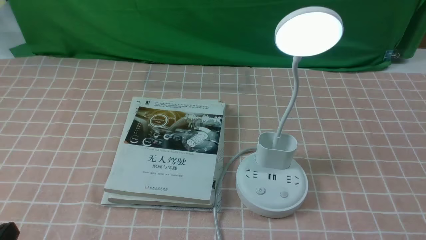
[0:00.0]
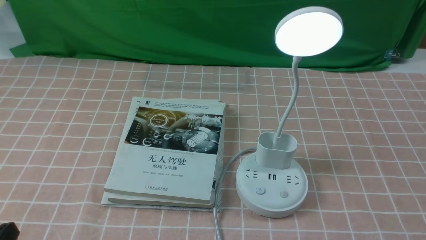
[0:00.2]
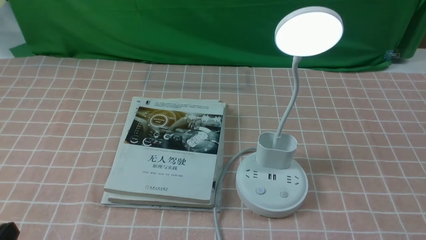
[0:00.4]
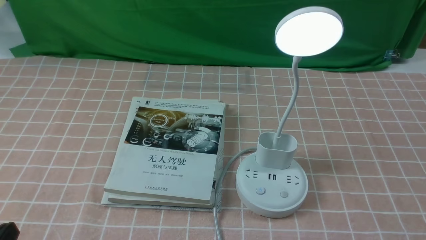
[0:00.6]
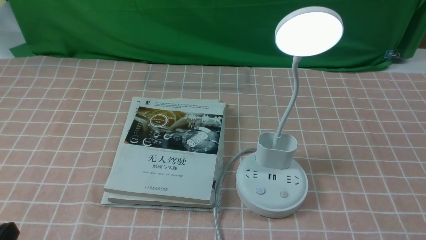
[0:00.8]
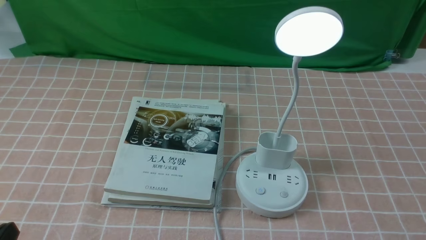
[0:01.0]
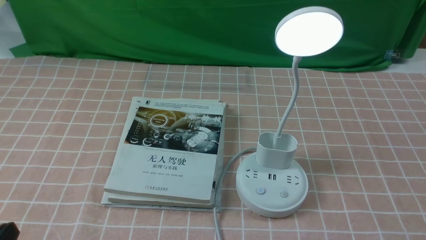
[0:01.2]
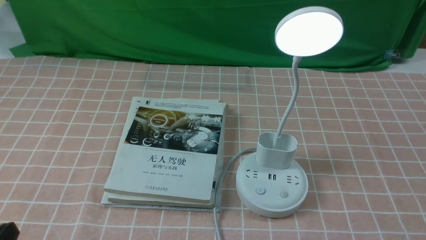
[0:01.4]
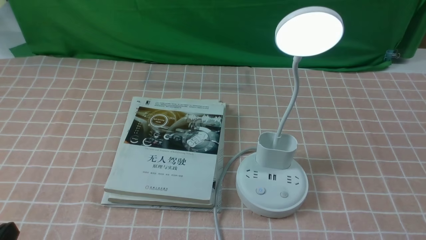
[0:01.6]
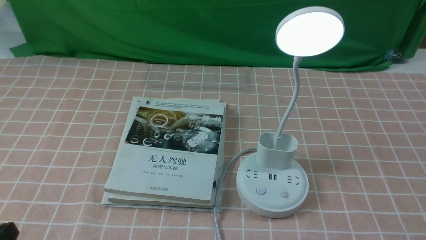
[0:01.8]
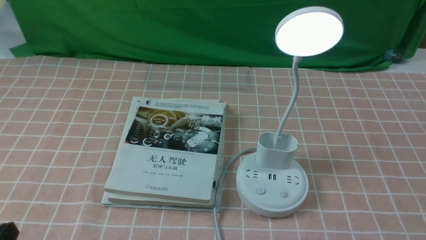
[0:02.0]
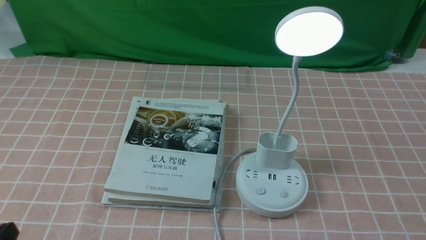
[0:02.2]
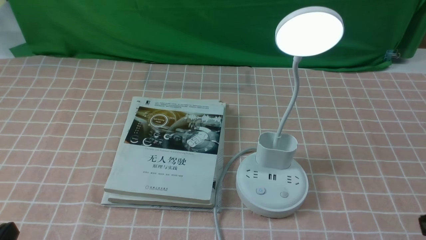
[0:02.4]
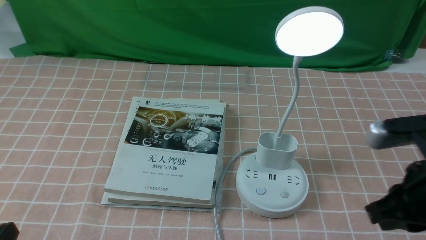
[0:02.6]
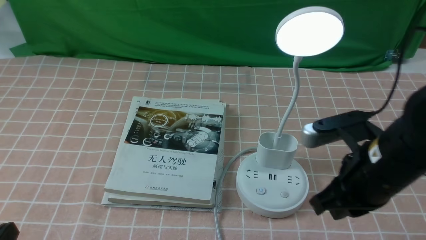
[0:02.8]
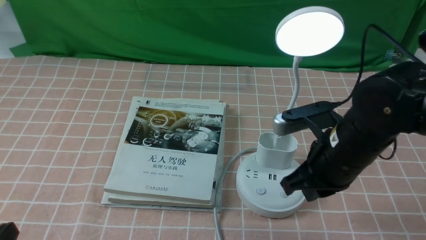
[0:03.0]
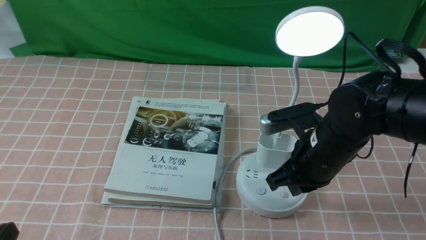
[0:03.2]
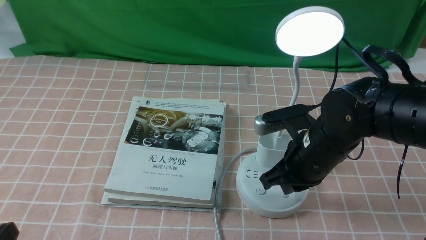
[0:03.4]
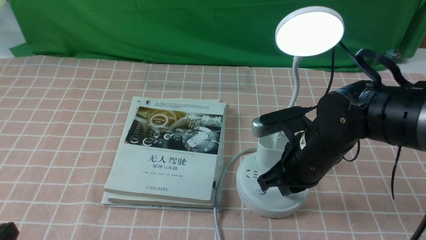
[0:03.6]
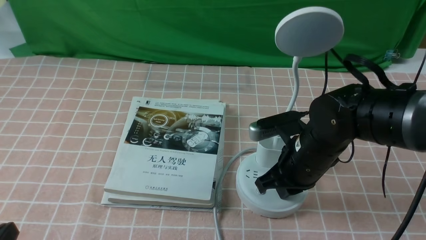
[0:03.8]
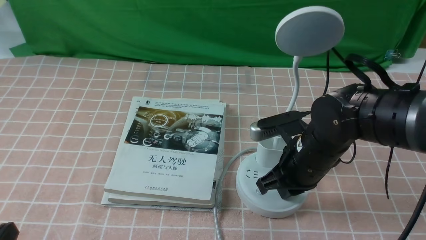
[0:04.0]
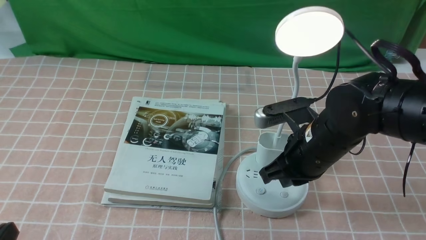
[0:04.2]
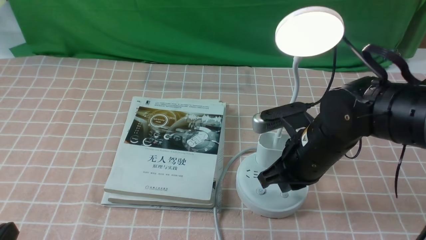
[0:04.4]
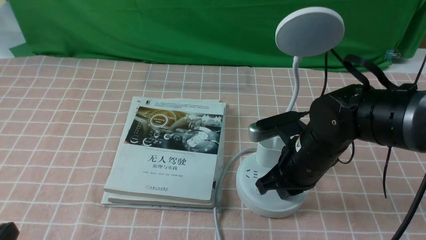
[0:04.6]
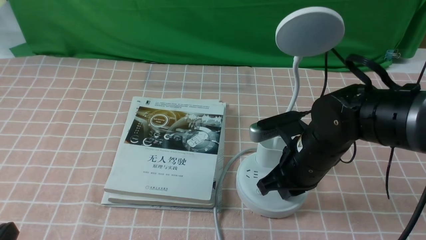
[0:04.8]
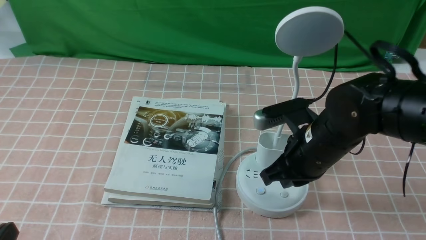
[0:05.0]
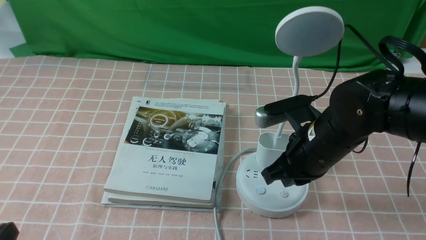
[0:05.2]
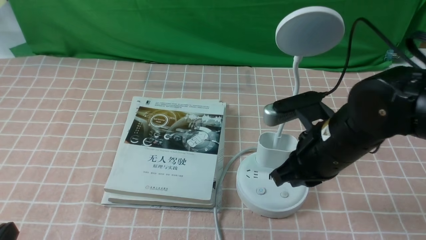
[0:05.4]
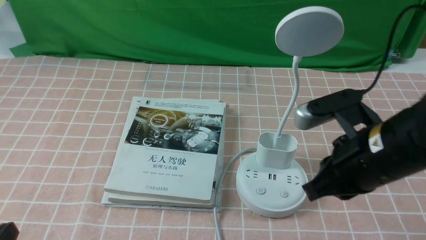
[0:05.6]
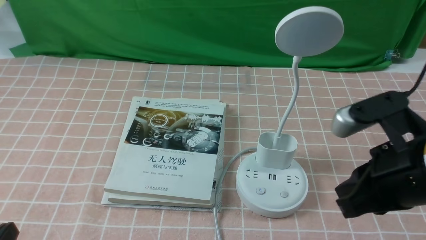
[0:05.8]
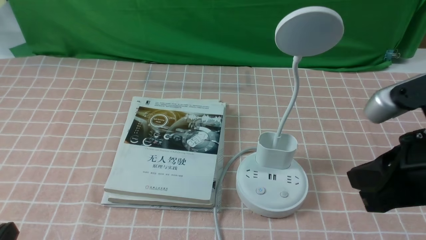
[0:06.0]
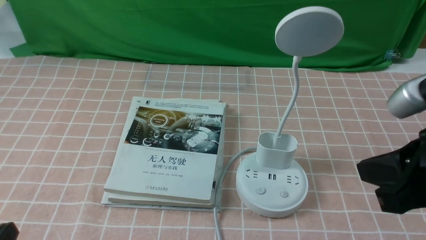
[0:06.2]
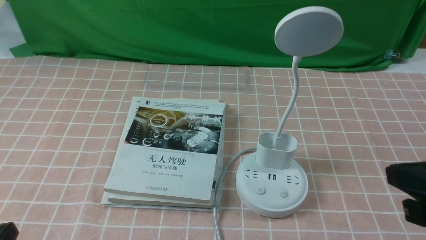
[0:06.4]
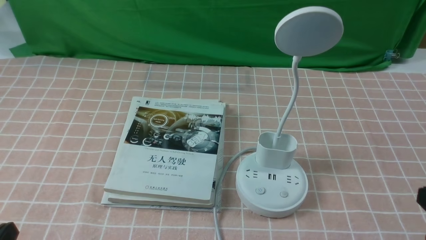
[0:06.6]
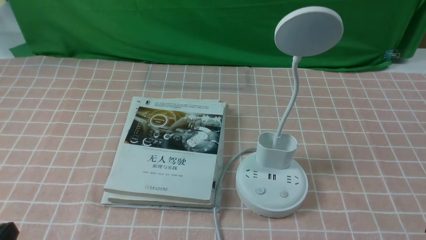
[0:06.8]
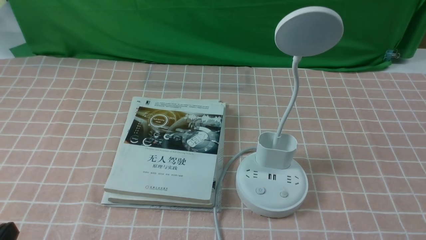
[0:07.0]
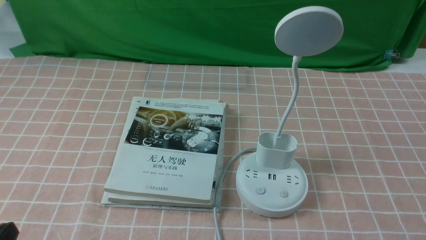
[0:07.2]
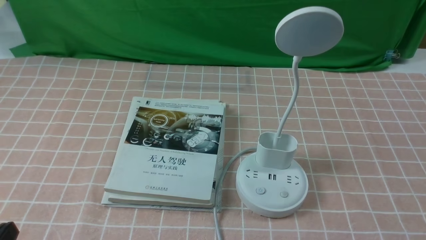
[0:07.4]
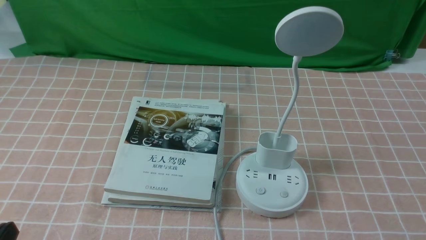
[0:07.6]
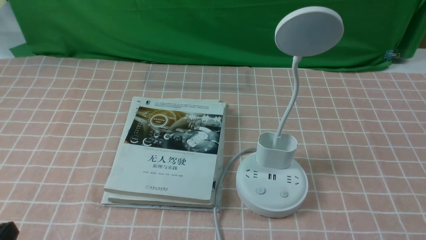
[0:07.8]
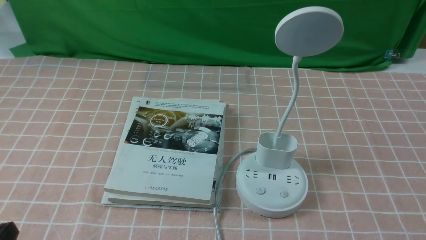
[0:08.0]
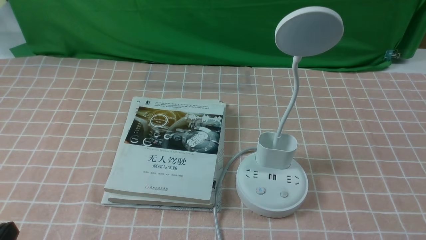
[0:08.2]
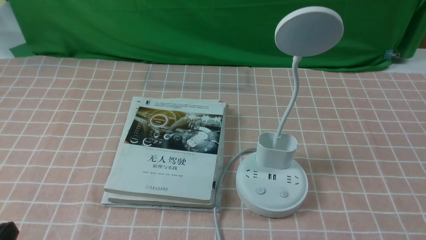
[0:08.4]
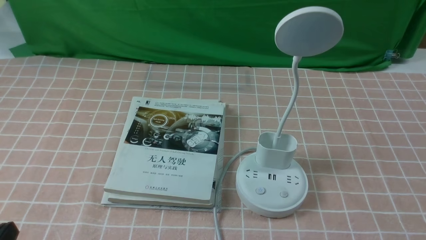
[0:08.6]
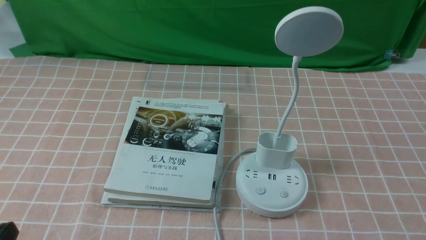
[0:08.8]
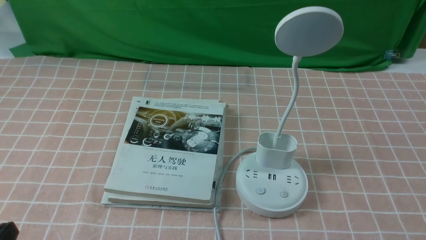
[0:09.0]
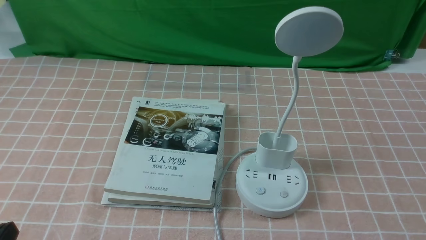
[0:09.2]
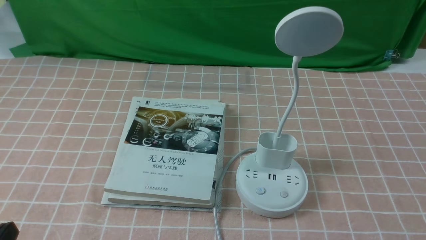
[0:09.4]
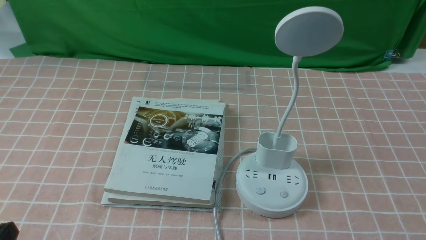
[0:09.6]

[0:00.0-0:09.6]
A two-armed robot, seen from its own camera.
Task of the whole recording: turn off the table lamp on the pink coffee tablecloth by hand.
Step, 0:00.0 to 0:04.6: use the right arm to press the button switch on the lamp holder.
0:01.6 to 0:03.2: The right gripper goes approximately 30 cm forward and to the left, and closes.
0:03.2 to 0:04.8: The grippers move only a little.
0:04.8 to 0:06.4: The right gripper shifts approximately 25 cm backward, to the right and upward.
0:06.4 to 0:08.0: The right gripper travels downward, backward and to the right by approximately 15 cm.
